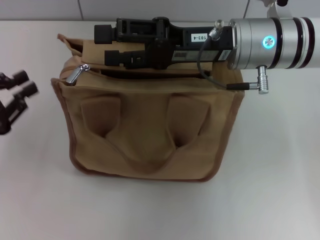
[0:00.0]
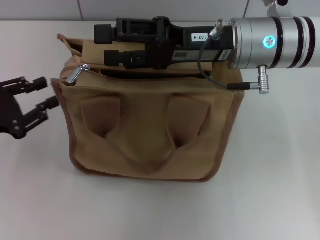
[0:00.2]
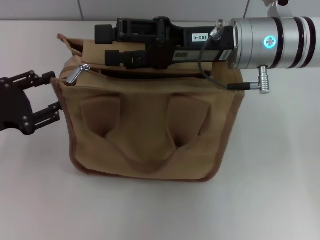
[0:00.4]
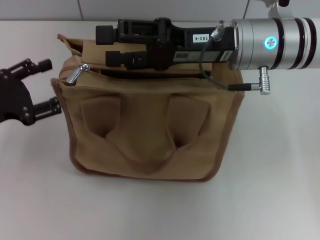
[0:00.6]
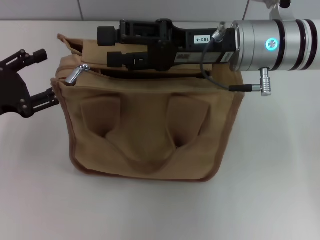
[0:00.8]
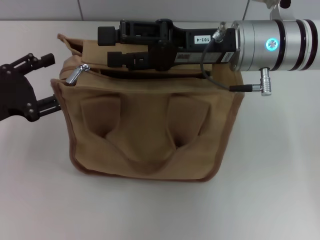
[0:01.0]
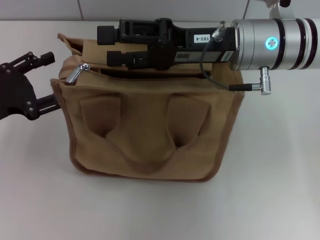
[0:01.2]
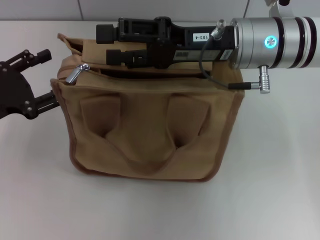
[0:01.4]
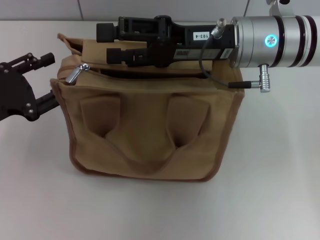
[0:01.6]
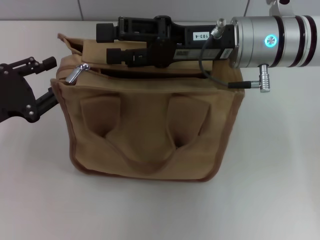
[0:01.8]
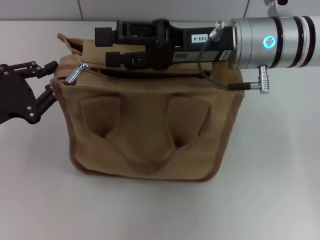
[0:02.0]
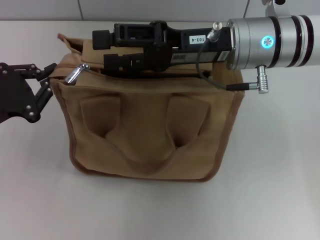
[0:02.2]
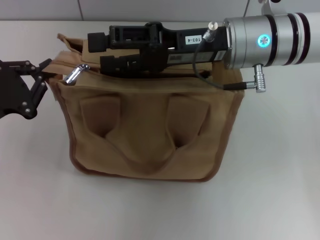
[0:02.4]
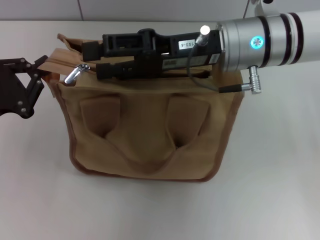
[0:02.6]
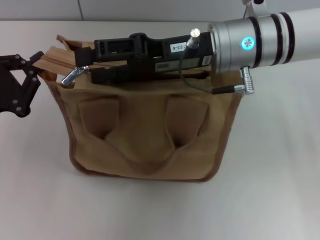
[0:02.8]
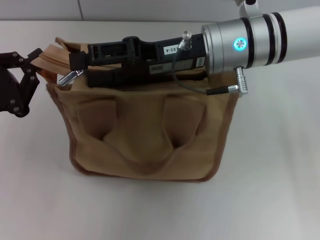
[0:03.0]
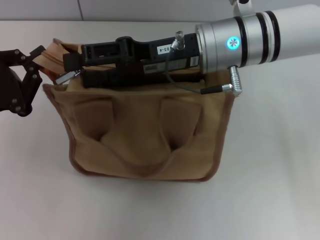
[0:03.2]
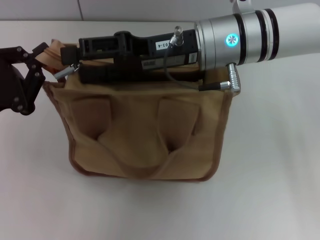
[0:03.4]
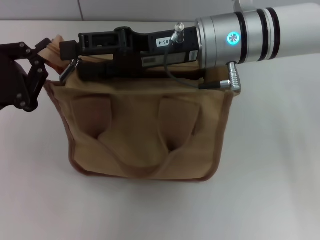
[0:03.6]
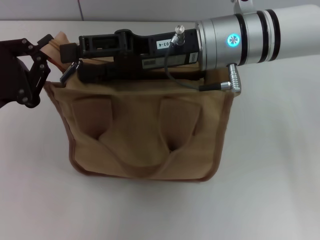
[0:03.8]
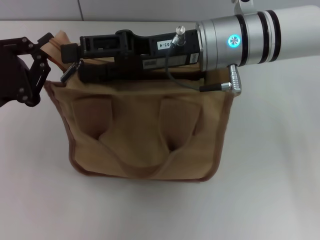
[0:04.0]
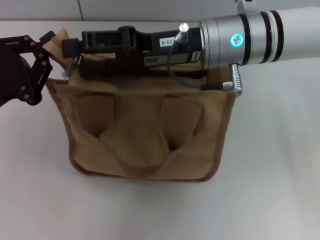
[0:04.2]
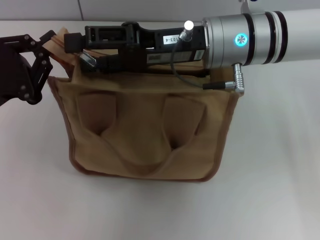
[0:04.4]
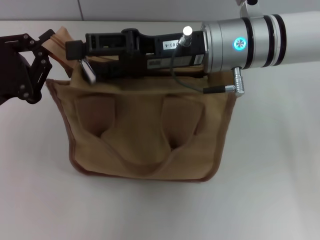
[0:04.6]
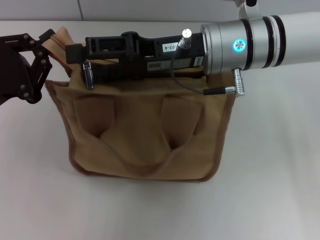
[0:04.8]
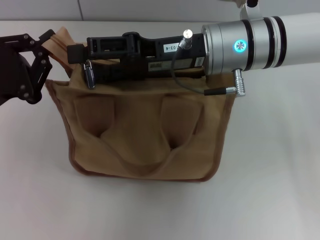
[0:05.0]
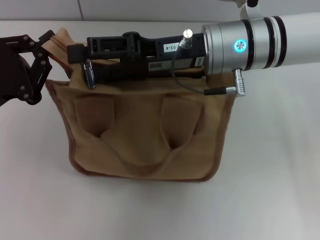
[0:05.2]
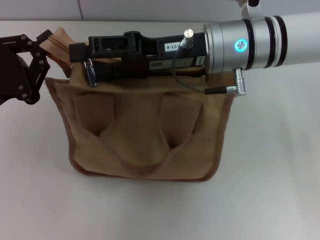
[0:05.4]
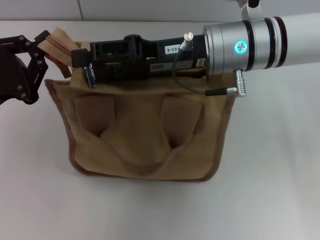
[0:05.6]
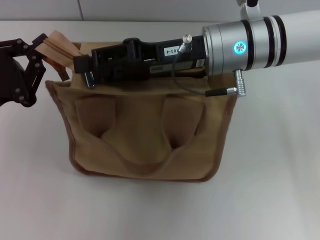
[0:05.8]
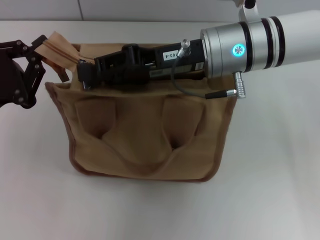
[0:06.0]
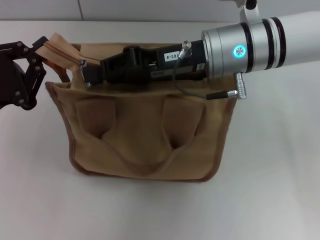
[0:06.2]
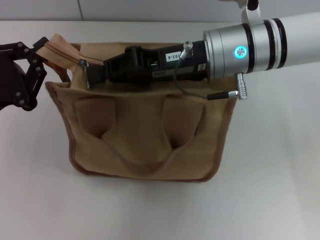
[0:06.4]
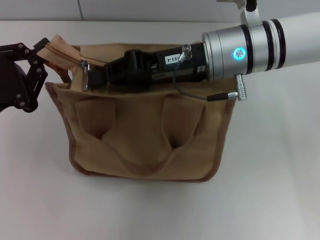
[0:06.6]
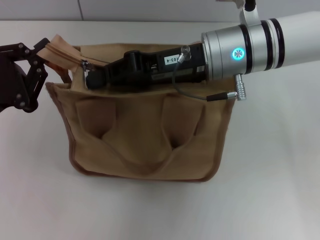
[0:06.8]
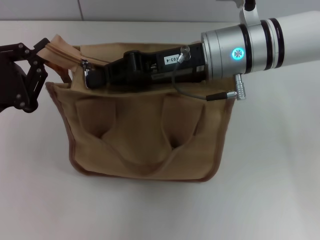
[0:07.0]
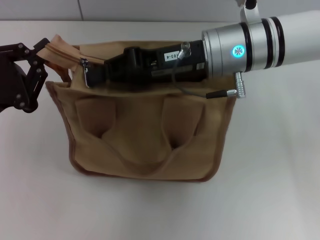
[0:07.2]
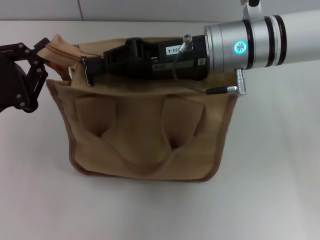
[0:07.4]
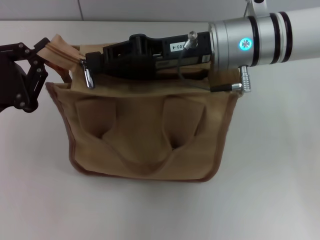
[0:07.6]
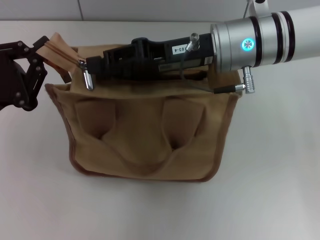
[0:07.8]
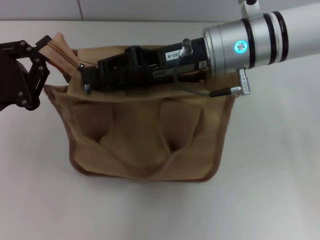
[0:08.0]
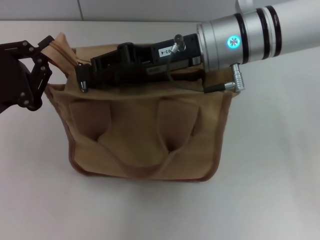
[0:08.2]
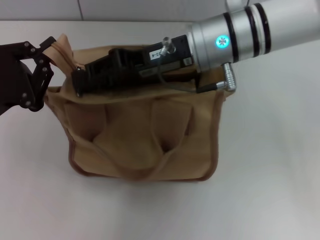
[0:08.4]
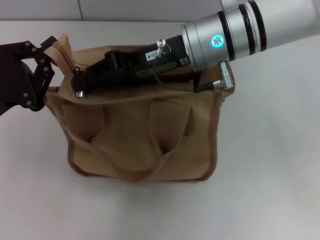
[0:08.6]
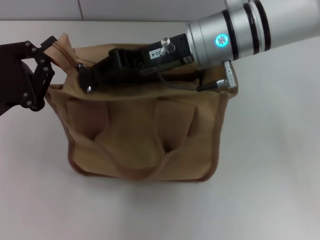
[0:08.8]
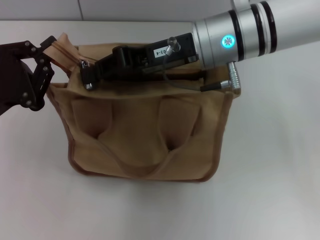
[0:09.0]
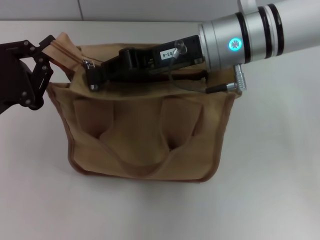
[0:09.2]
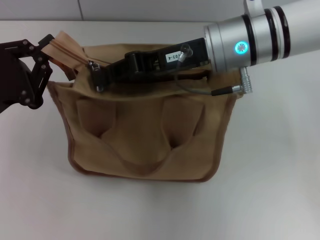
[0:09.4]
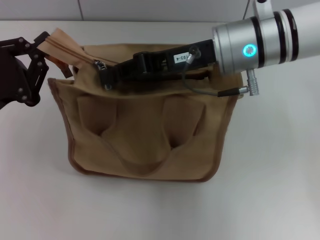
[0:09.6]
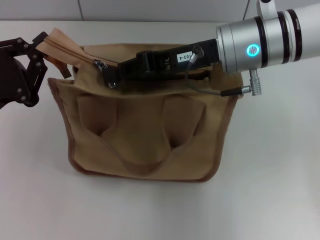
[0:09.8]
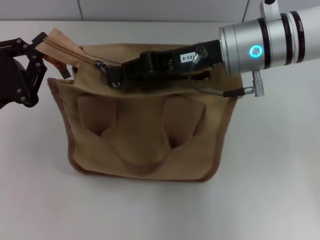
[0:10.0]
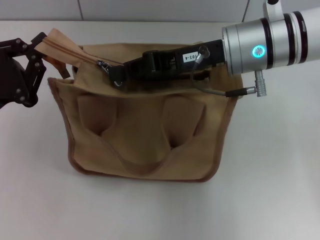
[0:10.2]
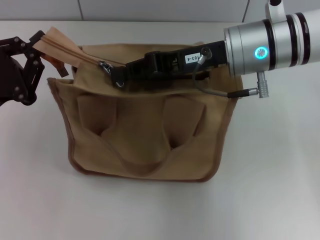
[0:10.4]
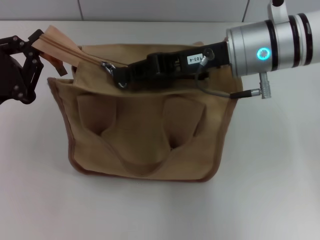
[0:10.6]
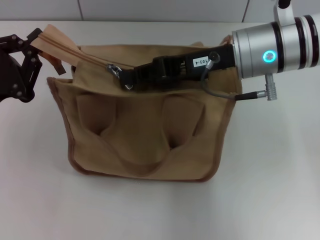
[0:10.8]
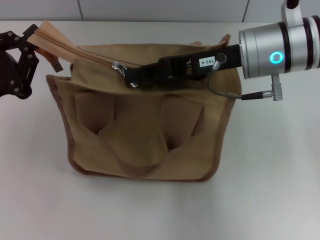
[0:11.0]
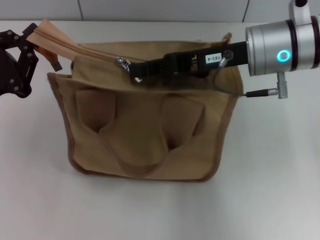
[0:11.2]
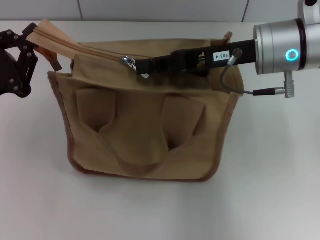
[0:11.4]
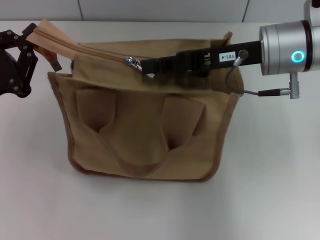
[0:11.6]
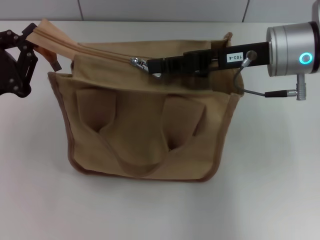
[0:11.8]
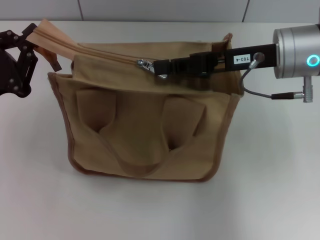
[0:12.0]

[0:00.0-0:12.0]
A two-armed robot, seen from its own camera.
0:00.0 to 0:01.6: The left gripper opens.
0:01.6 to 0:03.0: The left gripper closes its fingers.
0:03.0 to 0:06.0: The grippers stay close to where they were, moving slightly.
0:06.0 to 0:07.6: The right gripper closes.
0:07.6 to 0:10.4: There are only small adjustments of the grippers.
0:10.4 to 0:12.0: The right gripper moves to the right, roughly 5 cm.

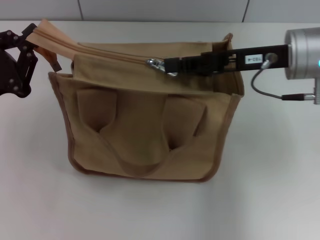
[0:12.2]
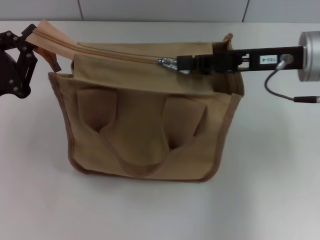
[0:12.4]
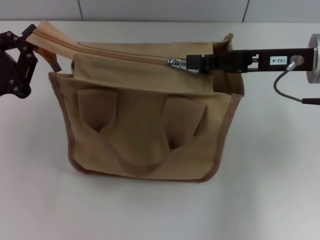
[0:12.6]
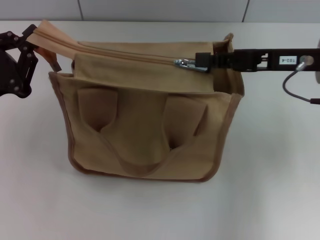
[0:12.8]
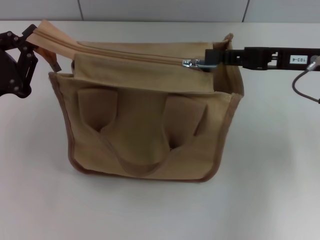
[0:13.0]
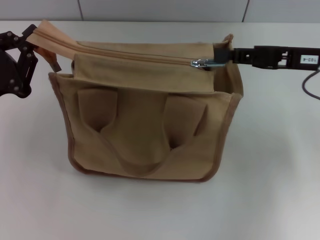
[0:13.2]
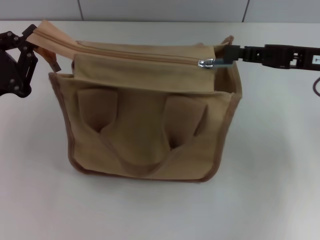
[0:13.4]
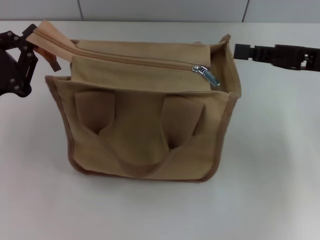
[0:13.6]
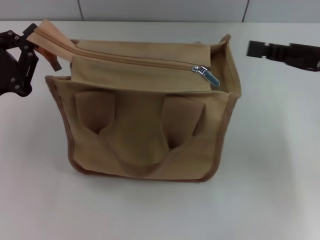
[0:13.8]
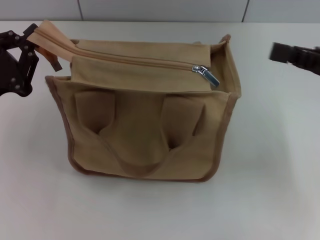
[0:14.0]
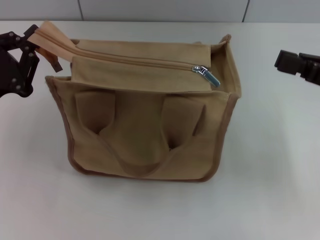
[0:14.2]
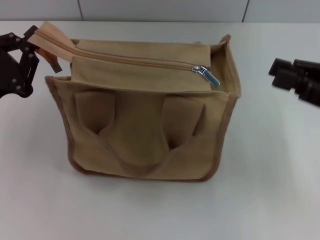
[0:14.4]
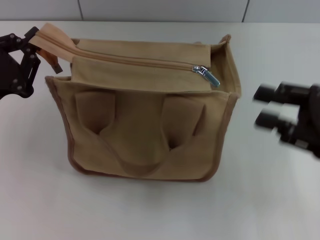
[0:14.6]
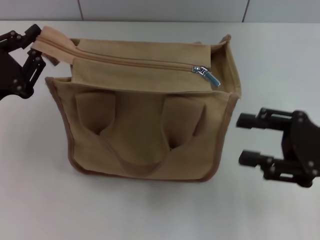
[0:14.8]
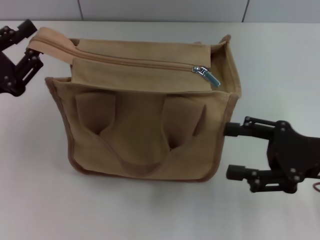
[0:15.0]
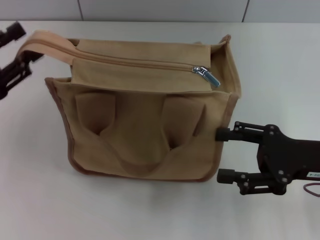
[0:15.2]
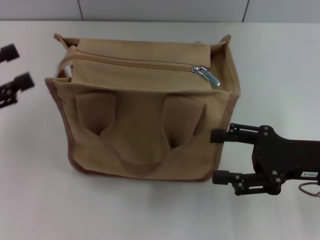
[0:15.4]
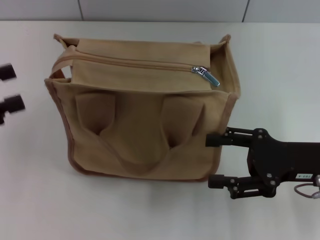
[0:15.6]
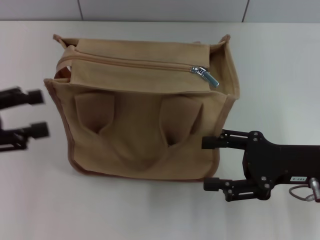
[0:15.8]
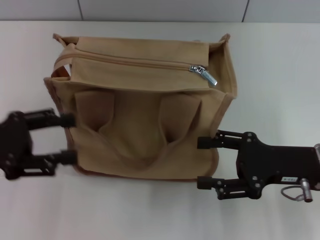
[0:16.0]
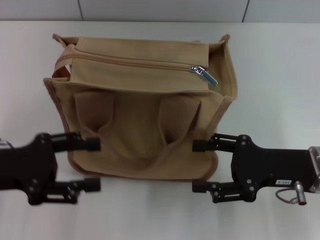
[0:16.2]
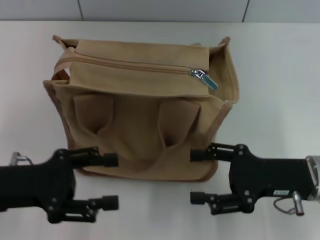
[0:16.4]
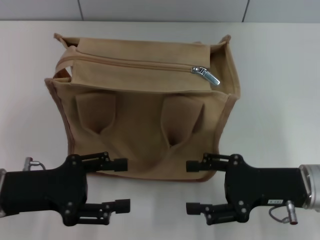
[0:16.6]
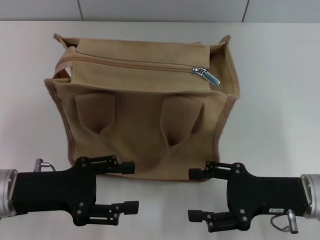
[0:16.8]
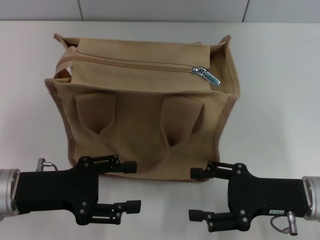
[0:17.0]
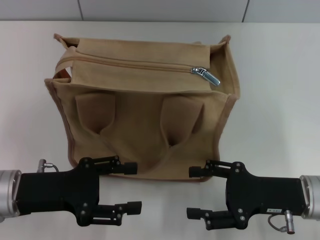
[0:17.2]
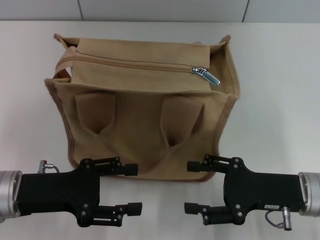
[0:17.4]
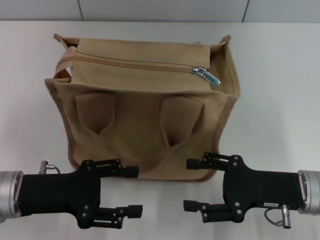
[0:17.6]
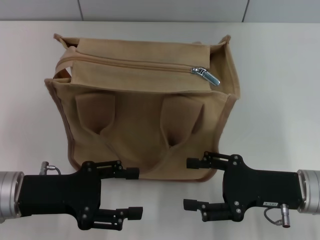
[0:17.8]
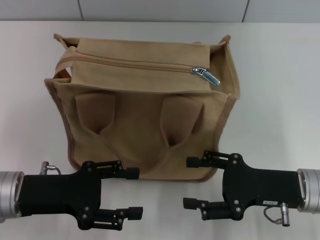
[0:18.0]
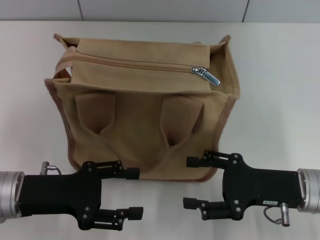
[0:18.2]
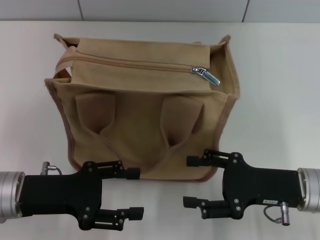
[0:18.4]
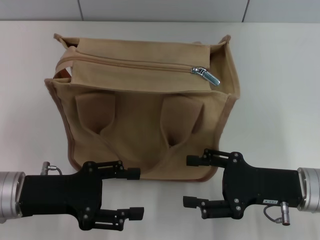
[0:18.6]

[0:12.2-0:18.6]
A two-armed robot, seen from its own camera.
Step, 0:13.6 to 0:15.2: Grab the zipper with your left hand.
0:12.2 to 0:13.8: The right gripper moves to the right, about 10 cm.
0:13.8 to 0:15.4: The left gripper goes about 5 cm to the left, and opens up. Meanwhile the right gripper heads downward and backward, covering about 10 cm, and opens its fingers.
0:15.4 to 0:17.0: The right gripper moves some 5 cm. The left gripper travels to the right and downward by some 15 cm.
0:17.0 to 0:18.6: Neither gripper changes place.
